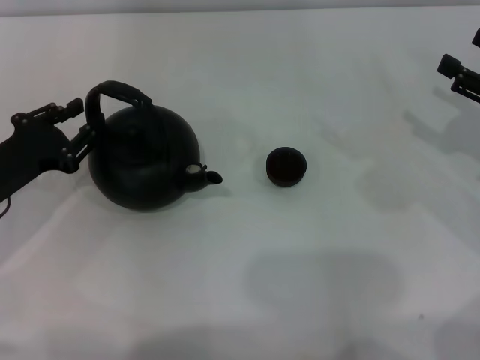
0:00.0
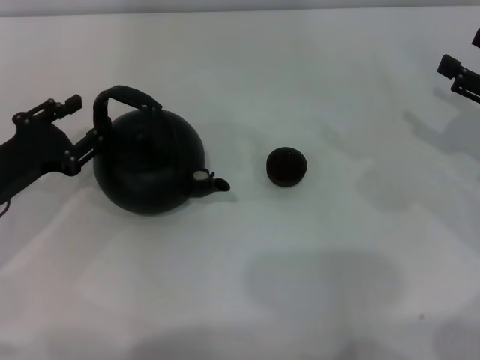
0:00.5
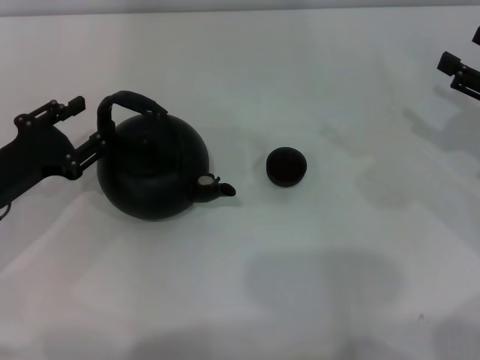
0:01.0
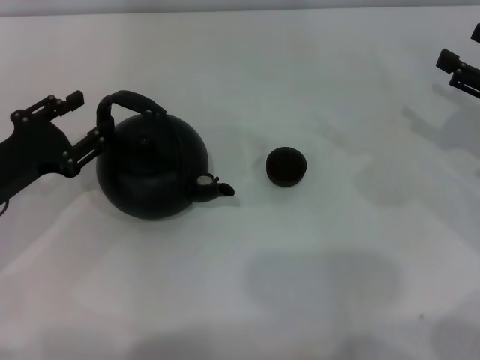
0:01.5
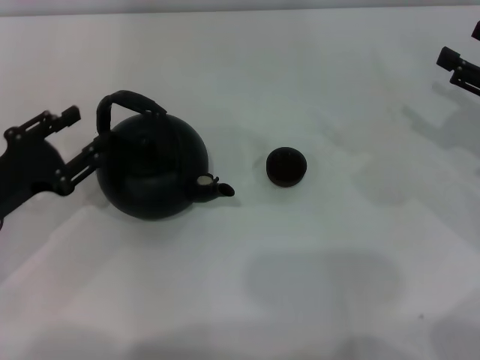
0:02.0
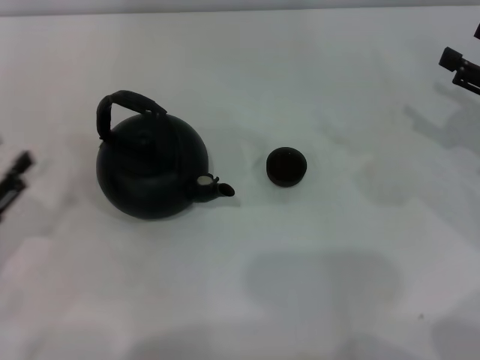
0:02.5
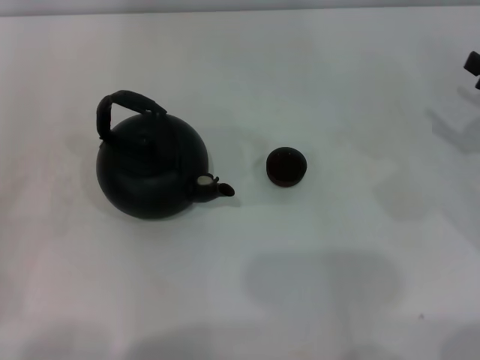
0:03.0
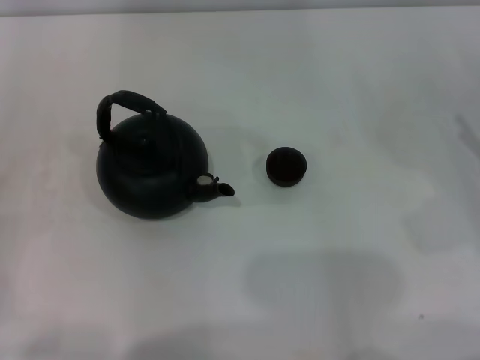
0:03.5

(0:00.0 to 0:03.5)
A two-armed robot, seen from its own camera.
Task of the whole recording: Grasp the handle of the teapot with one hand and pour tea into the teacup.
Step, 0:00.0 - 0:02.0: Put down the teapot with the left gripper.
0:00.0 - 0:02.0: The left gripper opens up.
0:02.0 - 0:03.5: The left gripper goes roughly 15 cm backward and to the left, while the right gripper moves approximately 5 cm.
